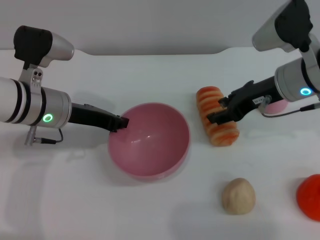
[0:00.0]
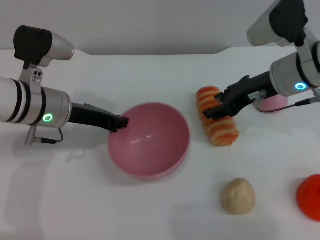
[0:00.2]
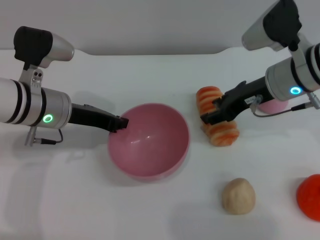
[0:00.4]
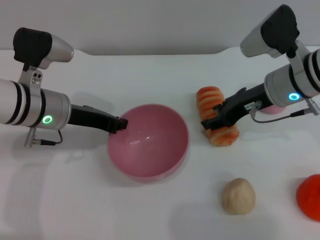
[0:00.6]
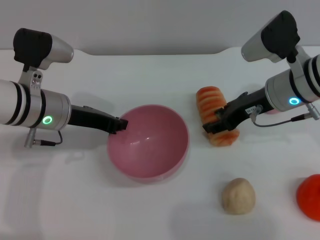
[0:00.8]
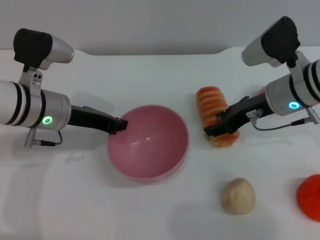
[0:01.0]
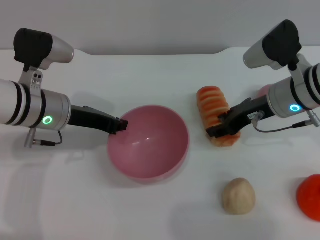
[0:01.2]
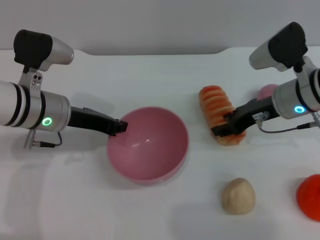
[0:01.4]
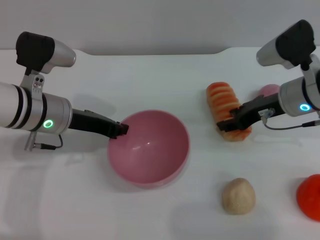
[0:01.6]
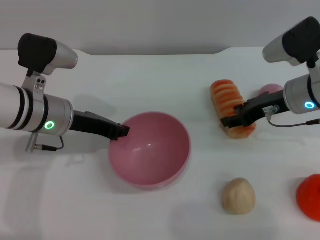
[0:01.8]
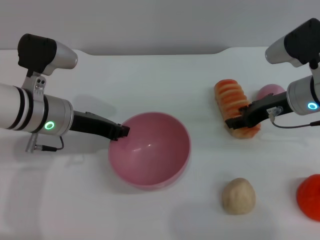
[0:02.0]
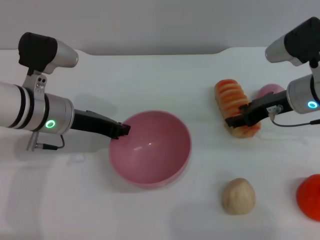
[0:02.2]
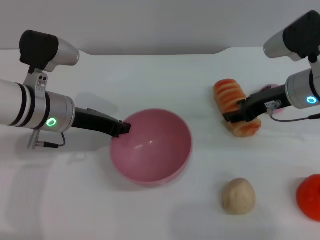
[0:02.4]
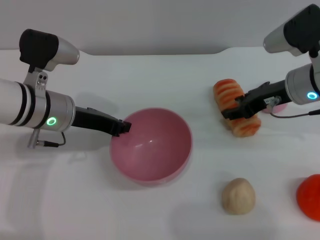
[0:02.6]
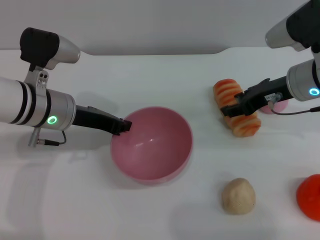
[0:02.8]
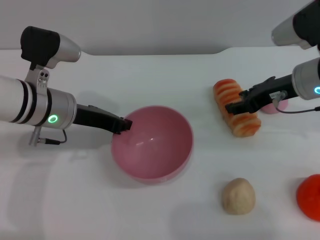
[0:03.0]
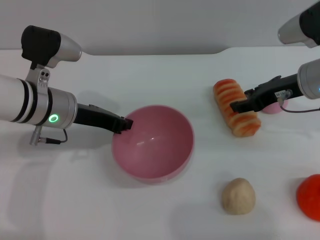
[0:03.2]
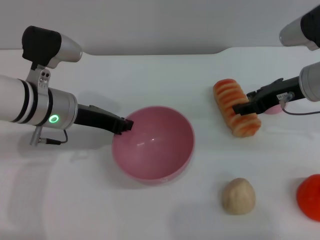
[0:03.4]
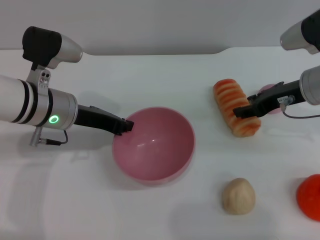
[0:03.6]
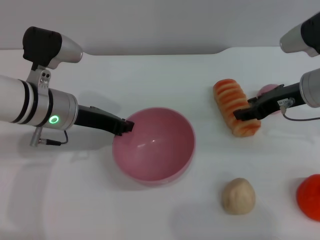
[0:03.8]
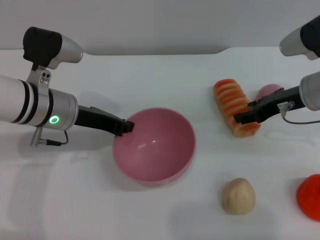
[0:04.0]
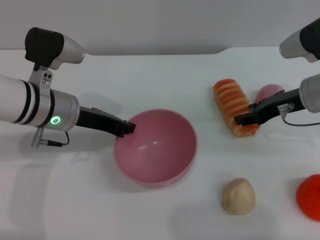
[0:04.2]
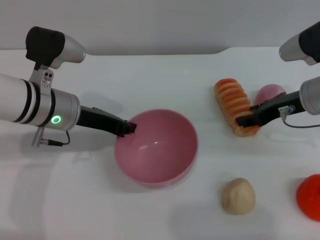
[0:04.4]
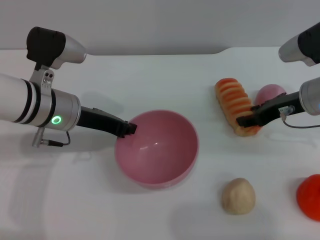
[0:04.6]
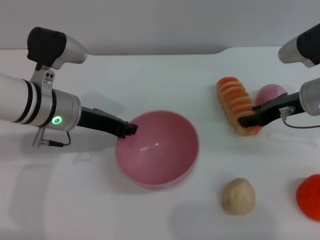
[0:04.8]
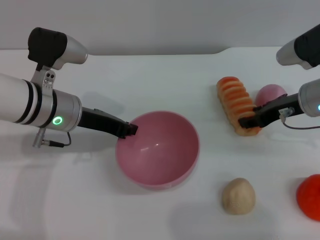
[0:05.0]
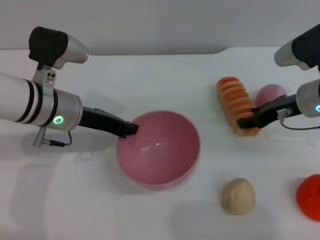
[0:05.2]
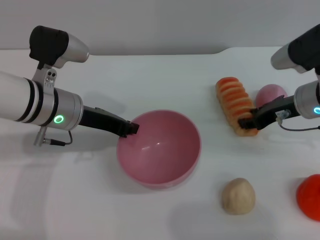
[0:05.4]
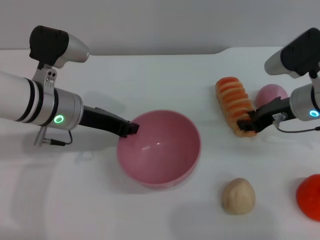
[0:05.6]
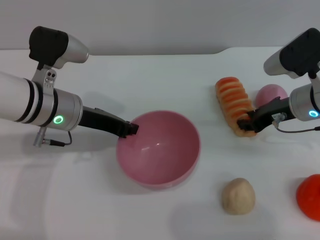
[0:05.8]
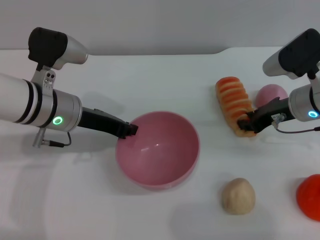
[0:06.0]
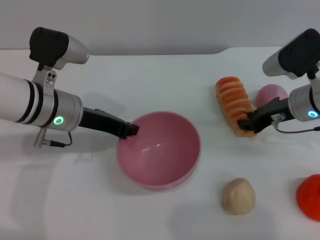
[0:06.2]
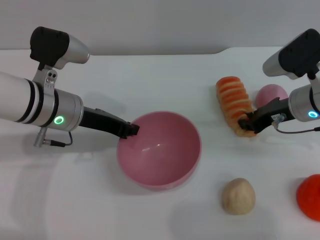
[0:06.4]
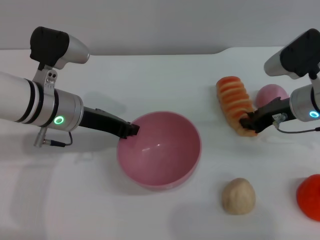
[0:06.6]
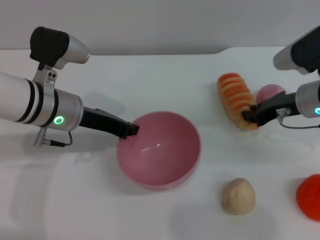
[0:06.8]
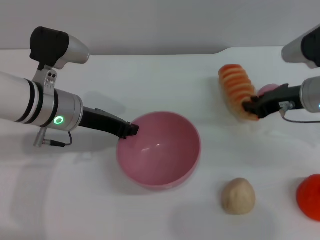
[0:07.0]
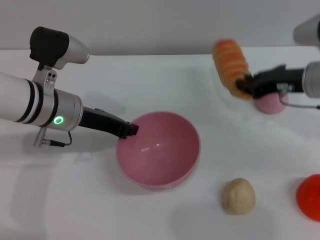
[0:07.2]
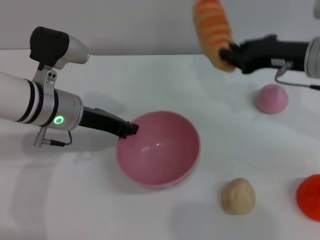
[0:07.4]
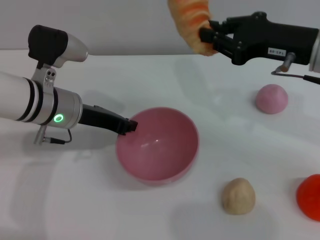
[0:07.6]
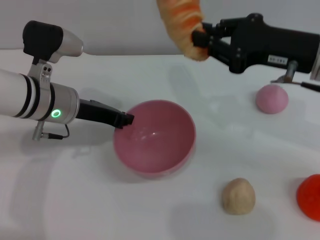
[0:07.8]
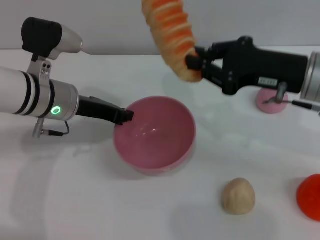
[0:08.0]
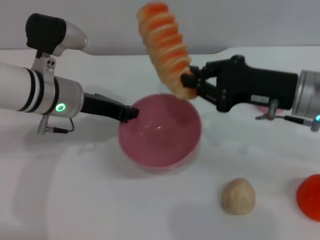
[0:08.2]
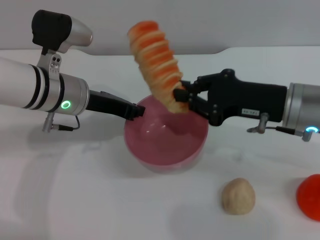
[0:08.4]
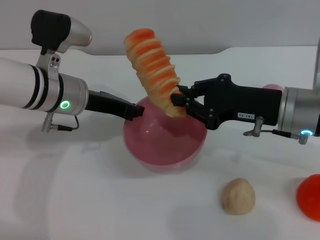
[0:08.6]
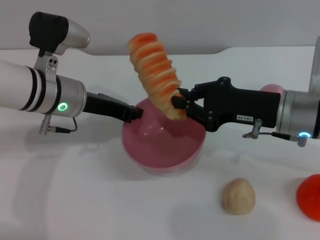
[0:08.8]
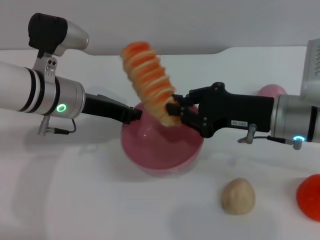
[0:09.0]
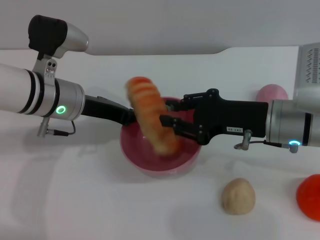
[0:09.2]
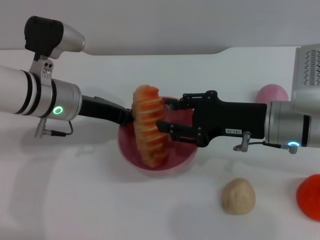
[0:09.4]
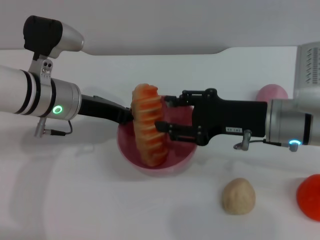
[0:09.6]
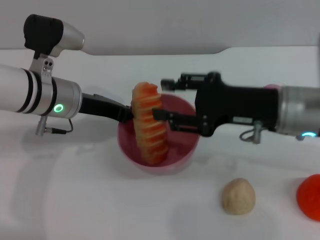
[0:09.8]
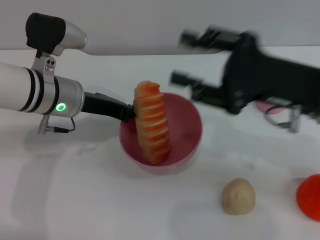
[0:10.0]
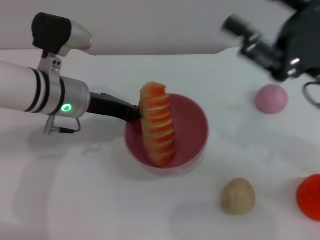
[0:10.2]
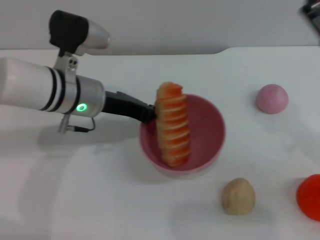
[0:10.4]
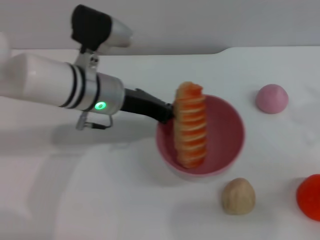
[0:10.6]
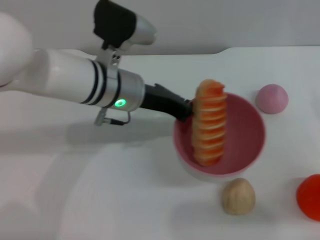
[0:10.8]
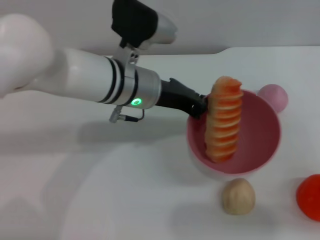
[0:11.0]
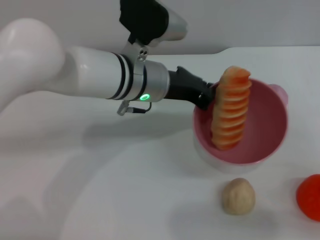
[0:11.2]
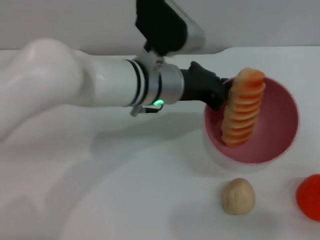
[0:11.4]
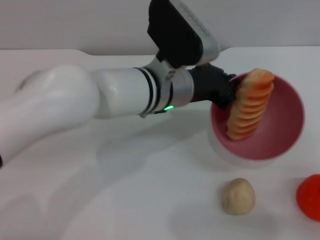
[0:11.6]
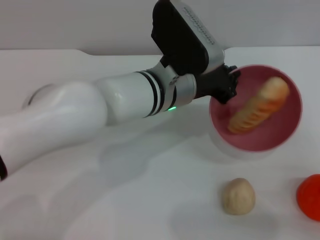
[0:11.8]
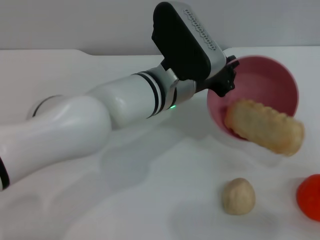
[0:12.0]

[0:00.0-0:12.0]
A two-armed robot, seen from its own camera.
Task of the whole recording: put the bread into the pink bowl and pour it out repeatedly.
Step, 0:00.0 to 0:07.2: Pick up the bread with the right gripper.
Step, 0:07.4 to 0:09.8: Place the bread into the bowl.
0:00.0 to 0:04.4: The grippers make only small movements.
0:04.4 to 0:06.0: The right gripper closes up.
0:06.0 to 0:07.6: The right gripper is displaced upward by approximately 10 cm.
0:07.6 to 0:09.0: The right gripper is displaced downward by some 5 cm.
0:09.0 to 0:10.4: The right gripper travels to the right by some 10 cm, and opens up.
0:10.4 to 0:12.0: The left gripper travels to the right by roughly 15 cm. Meanwhile the right gripper moves to the right, some 10 cm.

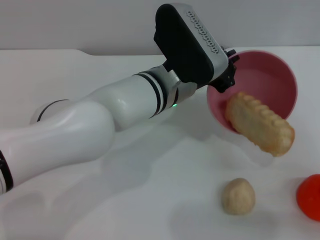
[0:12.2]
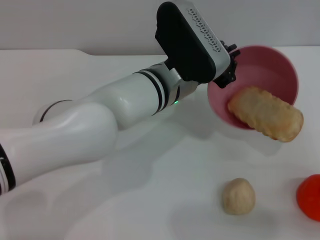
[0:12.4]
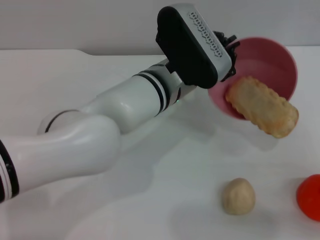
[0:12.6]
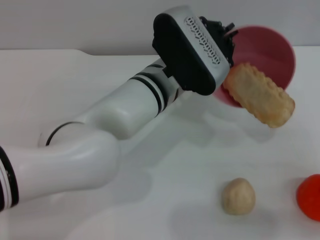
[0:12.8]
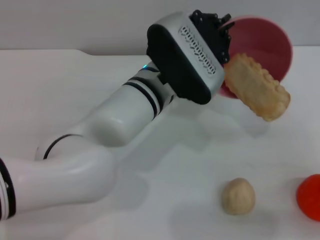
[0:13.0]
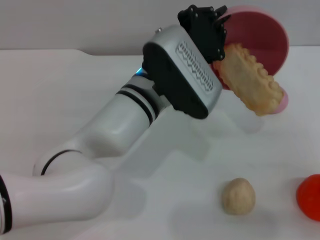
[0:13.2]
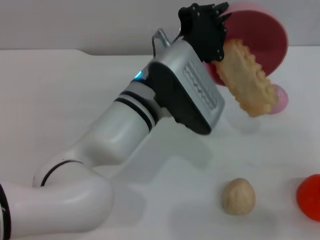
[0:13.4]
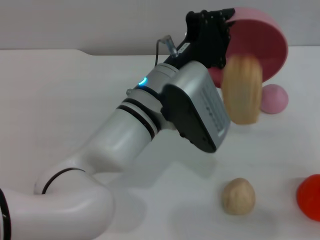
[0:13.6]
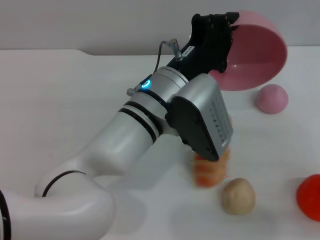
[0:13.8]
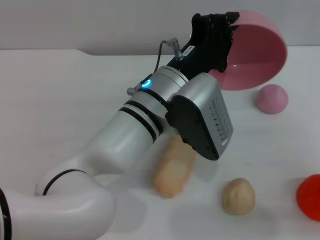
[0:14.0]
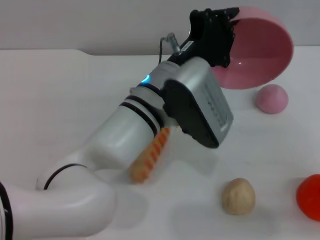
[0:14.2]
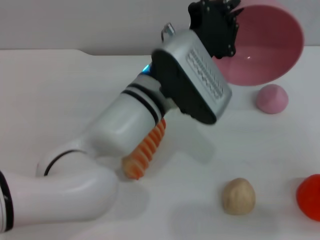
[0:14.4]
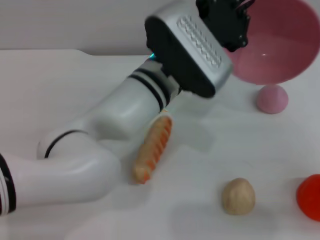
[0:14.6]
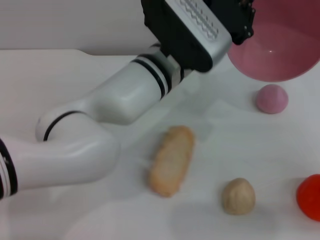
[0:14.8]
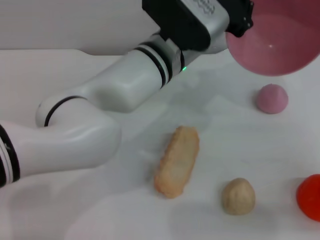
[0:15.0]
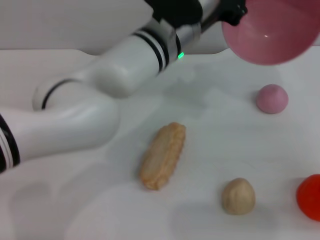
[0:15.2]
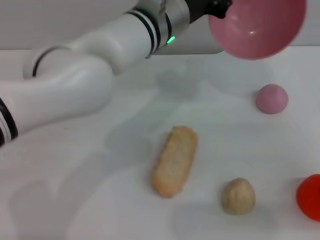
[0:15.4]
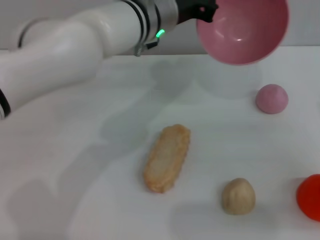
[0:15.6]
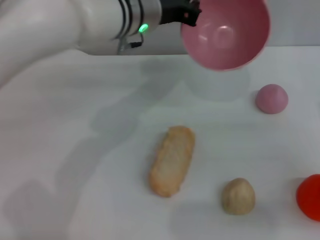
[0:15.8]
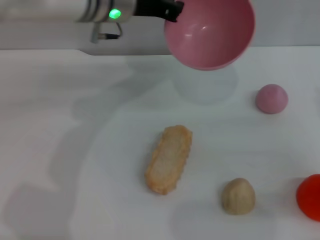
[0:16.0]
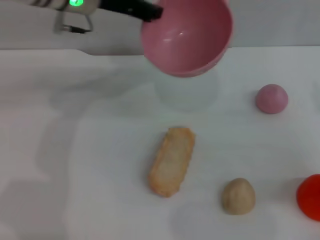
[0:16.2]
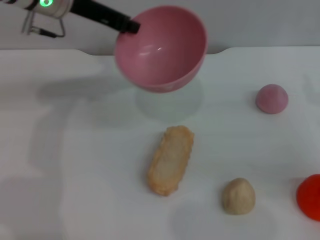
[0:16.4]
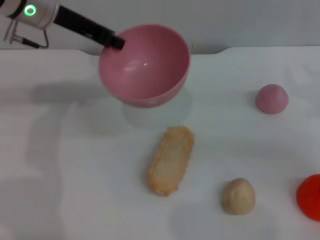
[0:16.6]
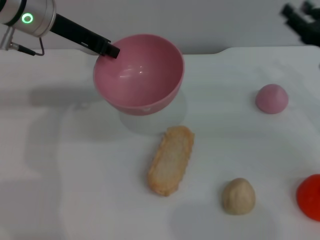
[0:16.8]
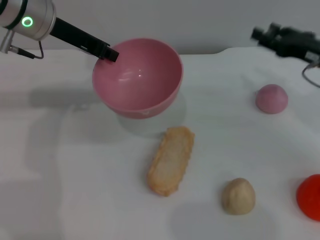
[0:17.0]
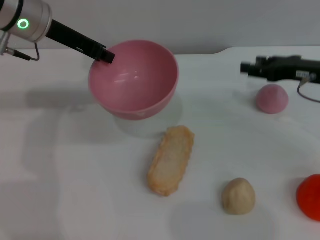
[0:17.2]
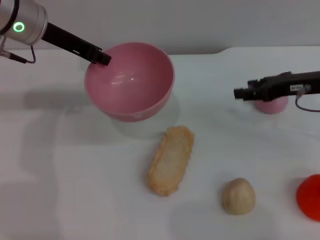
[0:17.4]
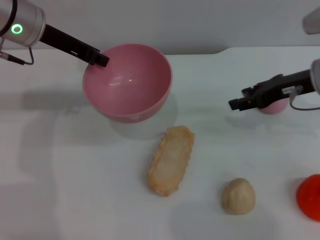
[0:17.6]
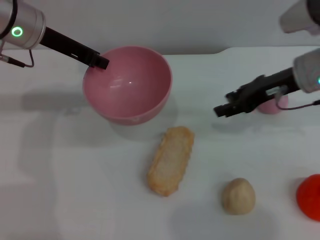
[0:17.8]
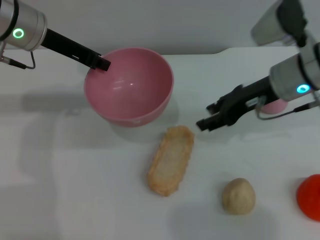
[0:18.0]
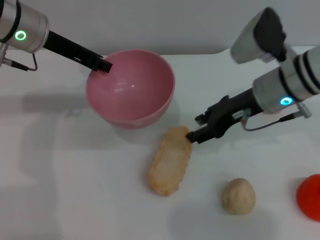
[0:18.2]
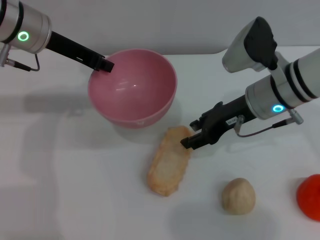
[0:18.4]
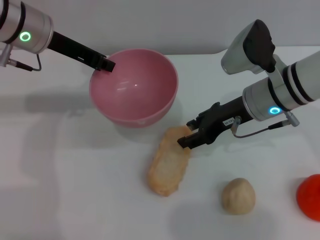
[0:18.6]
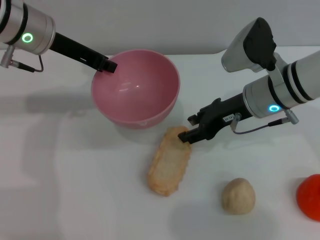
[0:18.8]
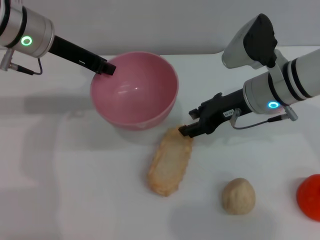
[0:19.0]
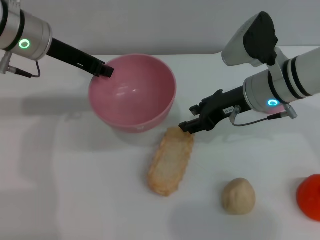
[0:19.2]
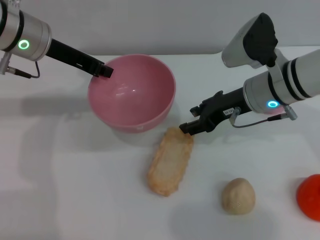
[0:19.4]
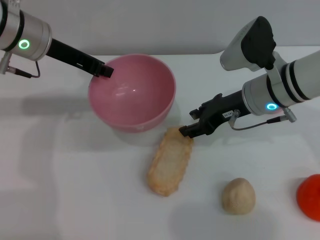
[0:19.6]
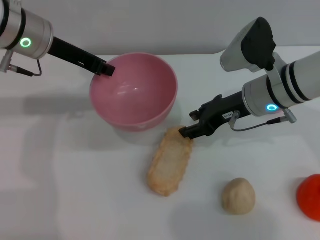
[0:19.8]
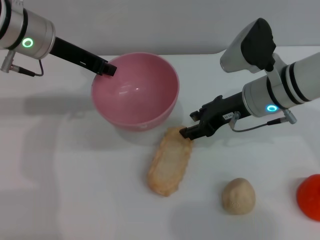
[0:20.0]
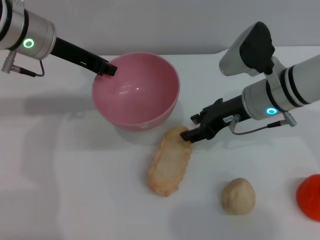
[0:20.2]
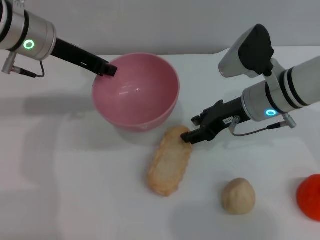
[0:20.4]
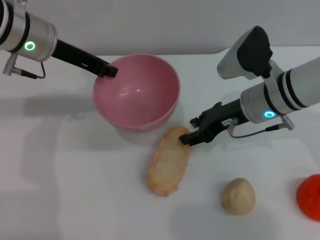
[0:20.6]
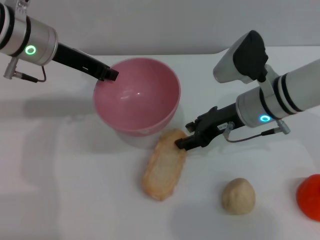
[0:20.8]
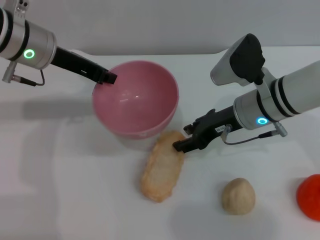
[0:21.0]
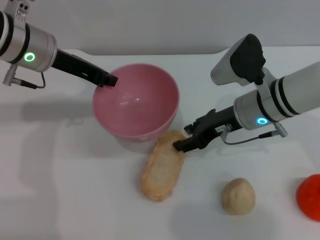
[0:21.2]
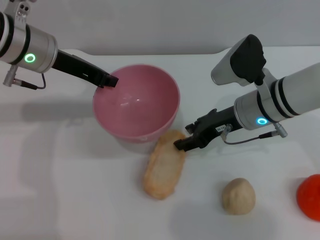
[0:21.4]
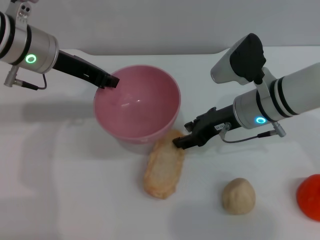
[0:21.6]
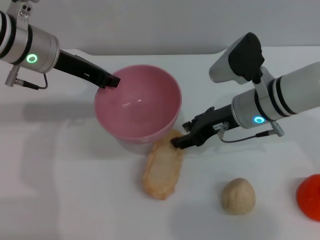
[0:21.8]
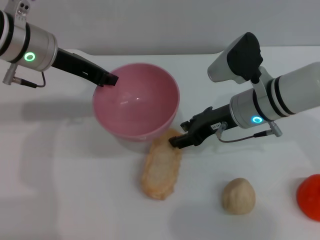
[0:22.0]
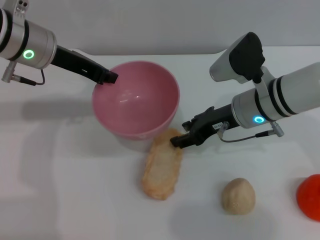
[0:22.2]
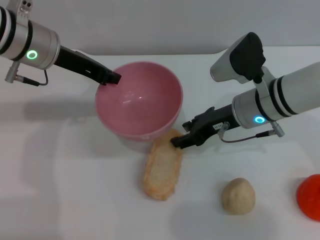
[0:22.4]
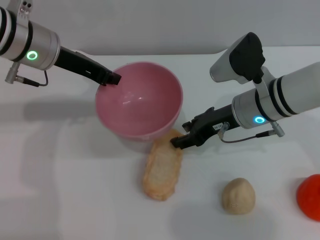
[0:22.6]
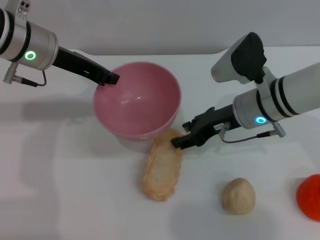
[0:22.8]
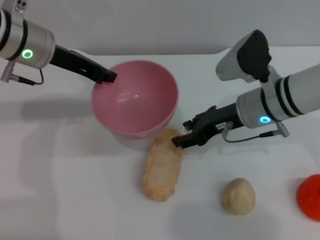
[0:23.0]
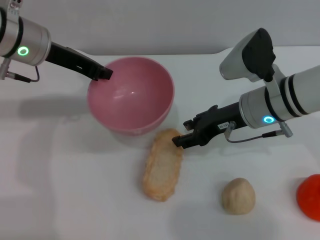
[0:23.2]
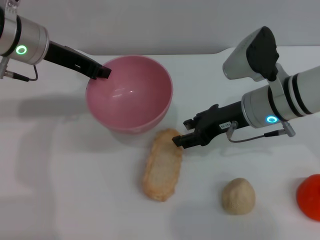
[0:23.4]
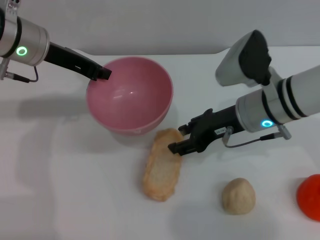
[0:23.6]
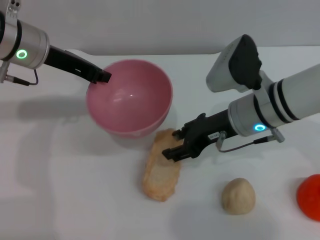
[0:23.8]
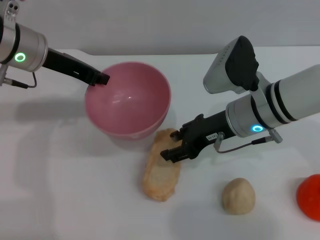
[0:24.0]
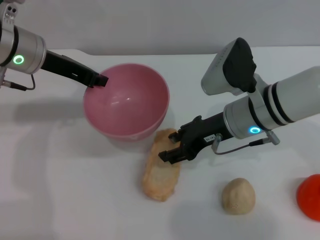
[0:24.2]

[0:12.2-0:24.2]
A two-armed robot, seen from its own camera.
Task of the whole recording: put the bread into the pink bowl and pour it out repeatedly.
Step, 0:12.2 to 0:14.2: Pour the bread out of the bowl.
0:13.8 to 0:15.2: The left gripper heads forward, covering some 5 cm.
0:15.2 to 0:16.6: The right gripper moves forward, about 10 cm; the left gripper heads to the left, covering about 20 cm.
0:16.6 to 0:18.2: The right gripper heads to the left, covering some 15 cm.
0:18.2 to 0:21.2: The grippers stay close to where they were, moving slightly.
0:21.2 to 0:22.6: The two grippers keep their place.
0:22.6 to 0:24.2: The grippers make only small movements.
